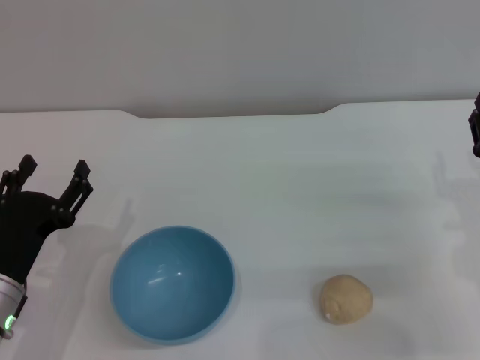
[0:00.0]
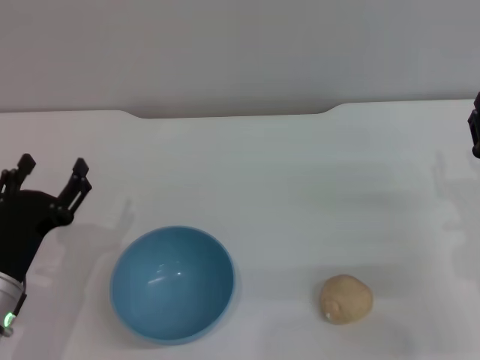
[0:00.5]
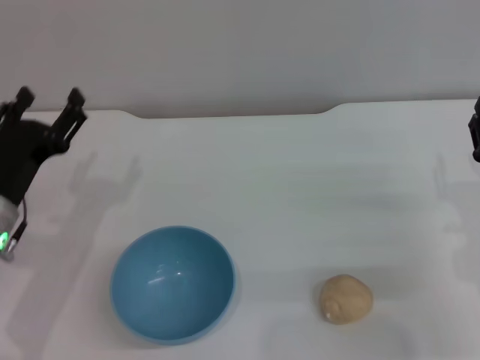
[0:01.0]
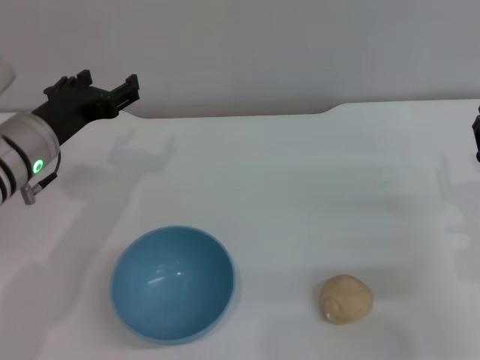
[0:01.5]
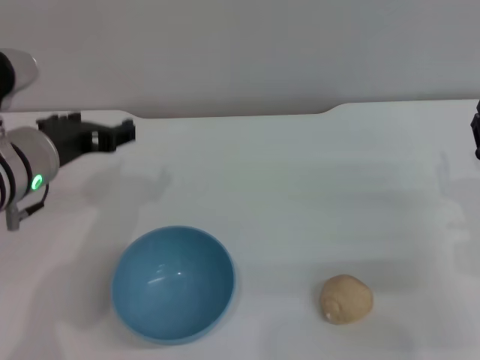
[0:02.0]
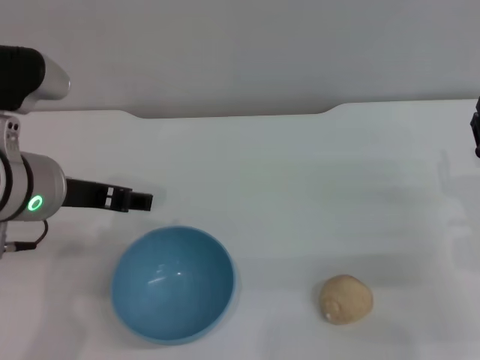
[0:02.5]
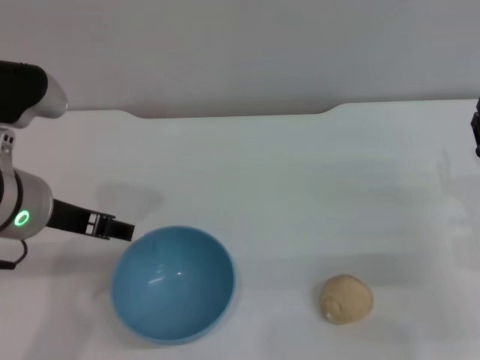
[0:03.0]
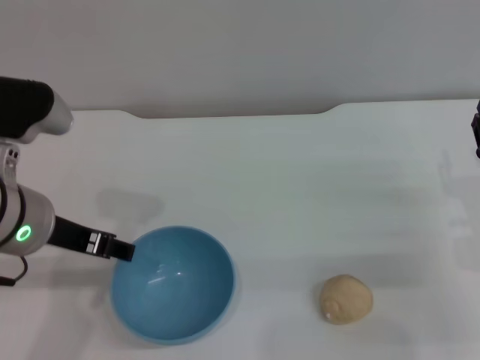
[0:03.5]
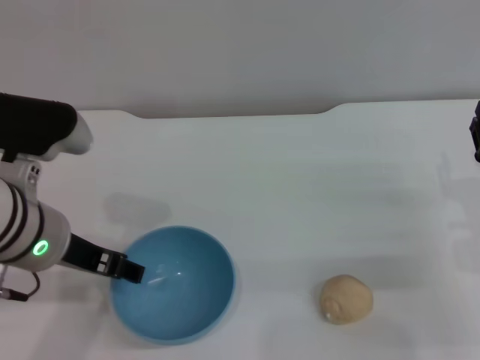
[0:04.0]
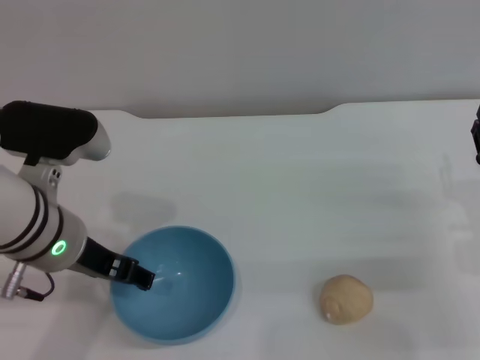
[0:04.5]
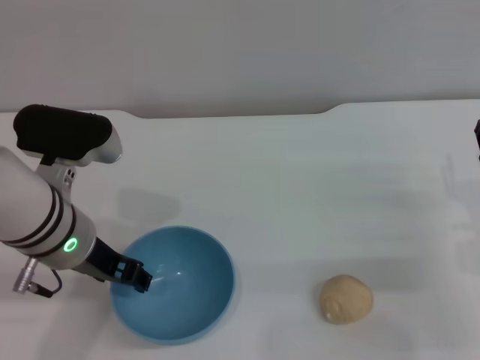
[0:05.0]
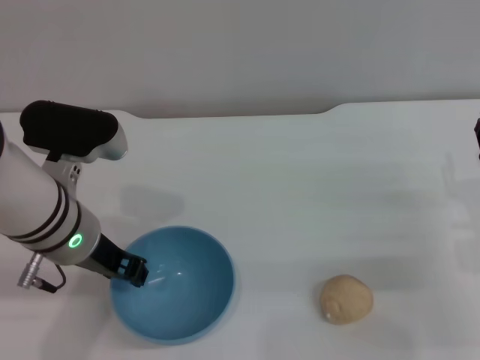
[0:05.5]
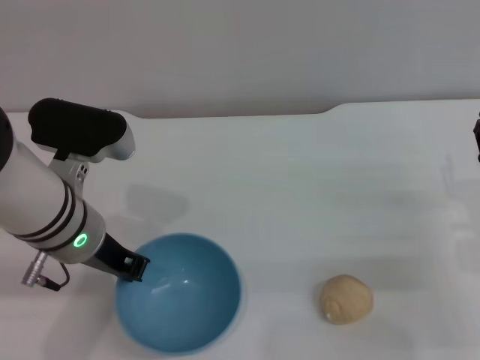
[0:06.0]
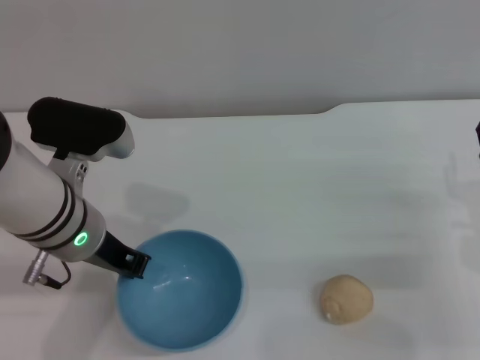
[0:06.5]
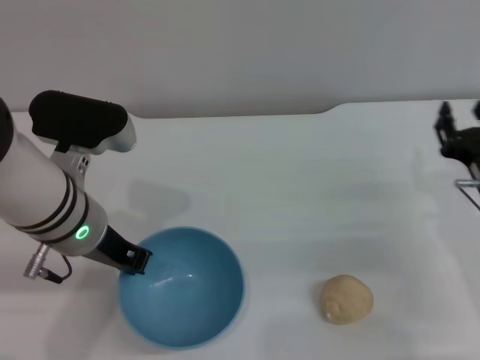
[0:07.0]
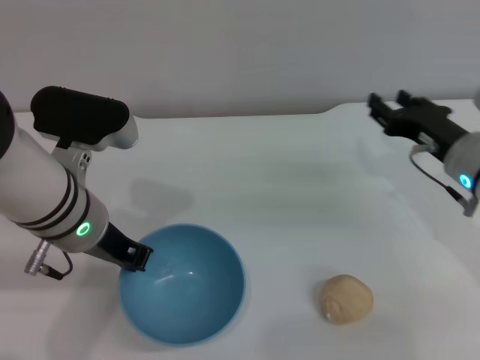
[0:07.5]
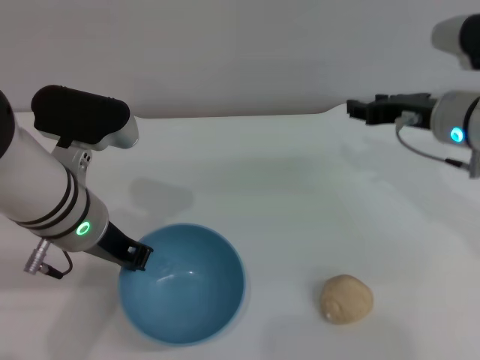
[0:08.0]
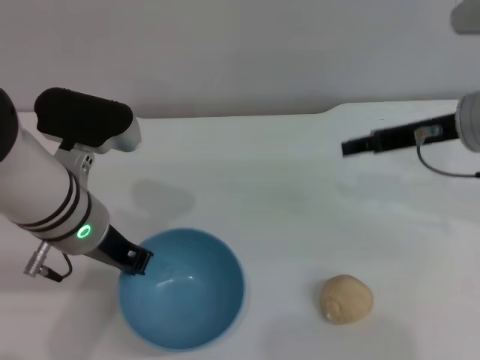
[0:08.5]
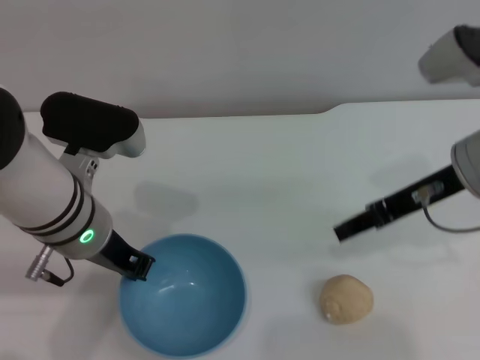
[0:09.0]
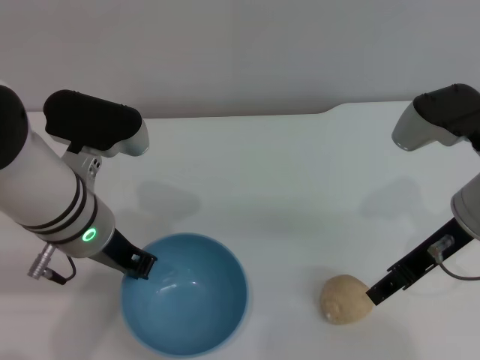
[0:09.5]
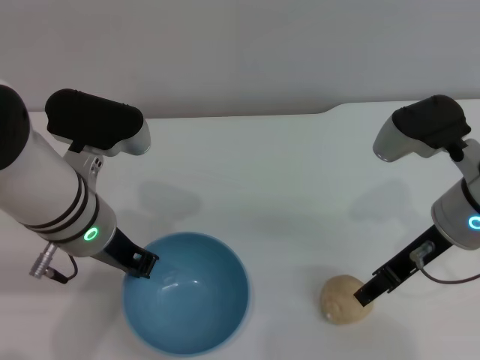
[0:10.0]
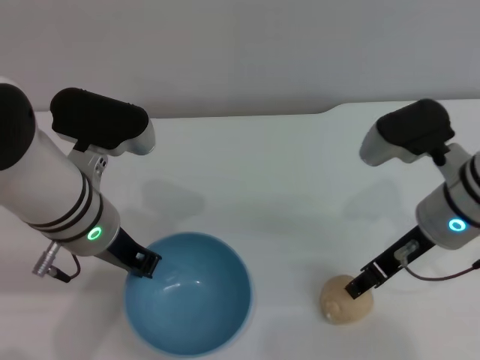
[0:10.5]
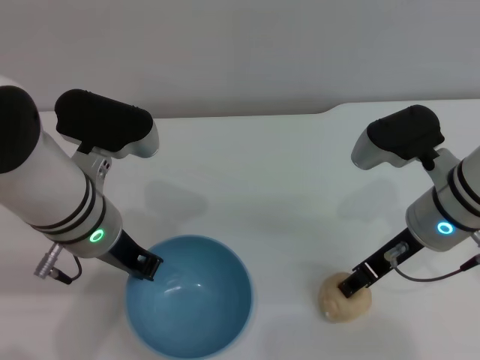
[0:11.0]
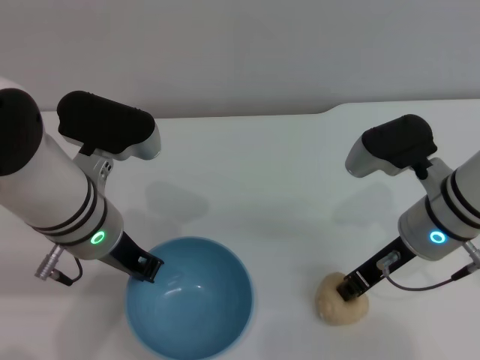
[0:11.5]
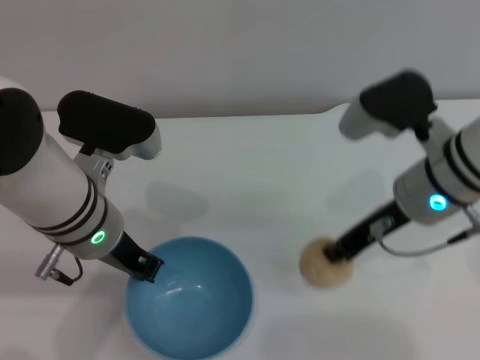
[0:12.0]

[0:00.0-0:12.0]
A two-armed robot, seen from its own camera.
Task of the whole recording: put the egg yolk pastry into the blue bowl and pour it out repeatedly.
Step, 0:00.0 to 0:08.5: Pick up the bowl with the left gripper.
Step, 0:09.0 to 0:12.0: Pick up the egg yolk pastry with the right gripper.
0:00.0 to 0:02.0: The left gripper heads upward and forward, covering about 15 cm.
0:04.0 to 0:06.0: The left gripper closes its fingers.
0:06.0 to 0:08.0: The right gripper heads upward, forward and to the left, covering approximately 15 cm.
0:08.0 to 0:10.0: The right gripper heads backward, covering approximately 5 cm.
0:10.0 to 0:12.0: The right gripper closes its fingers.

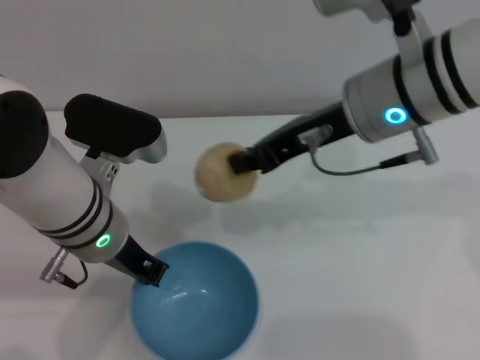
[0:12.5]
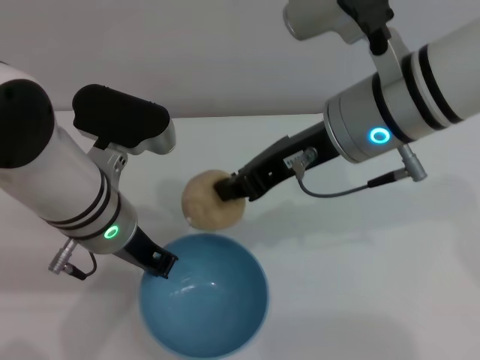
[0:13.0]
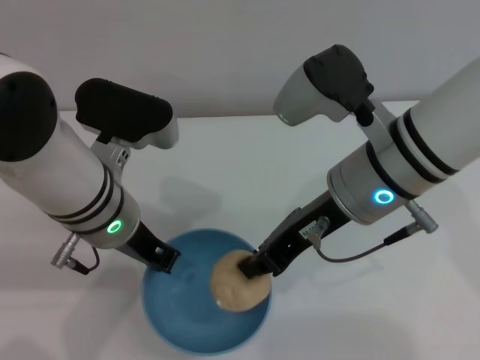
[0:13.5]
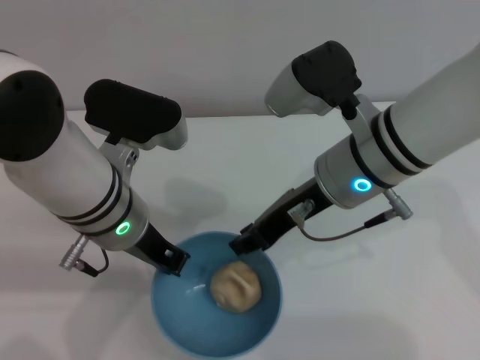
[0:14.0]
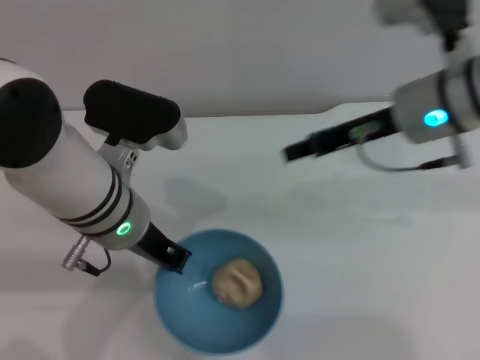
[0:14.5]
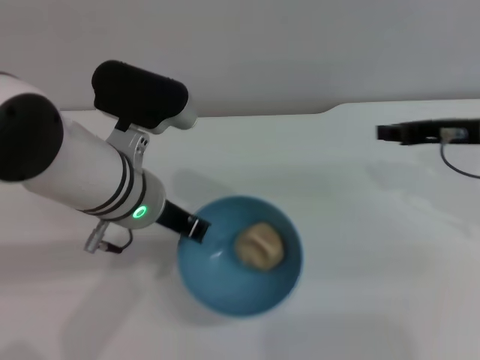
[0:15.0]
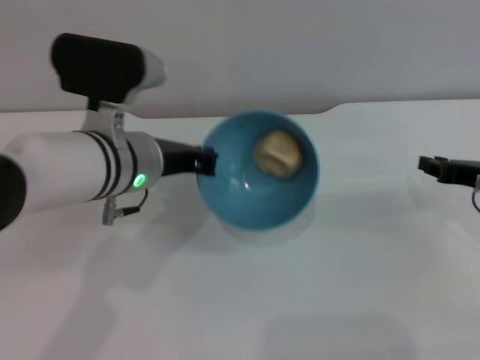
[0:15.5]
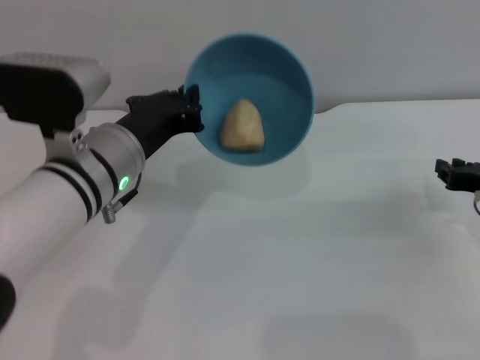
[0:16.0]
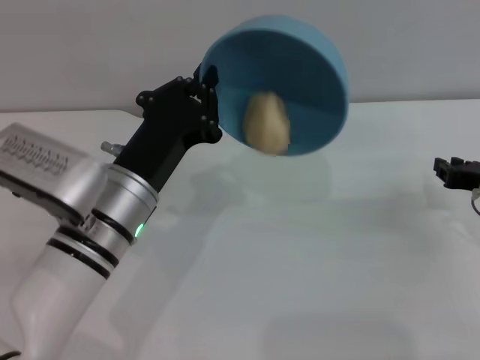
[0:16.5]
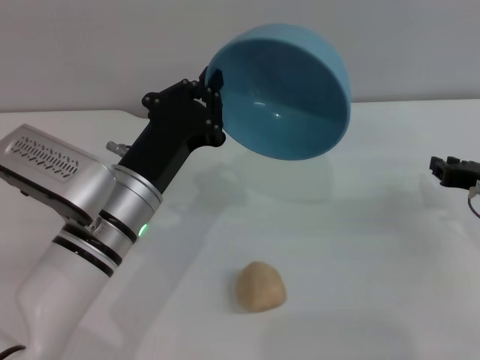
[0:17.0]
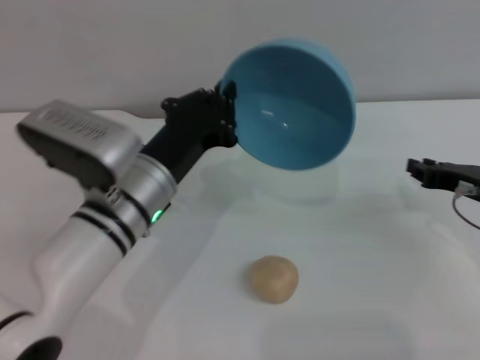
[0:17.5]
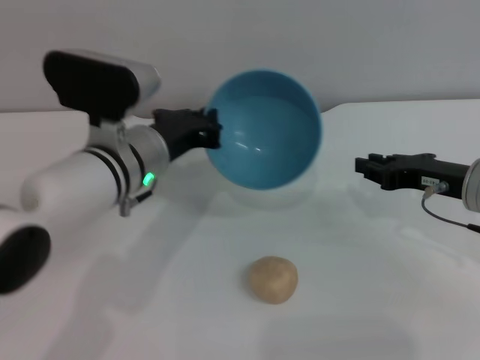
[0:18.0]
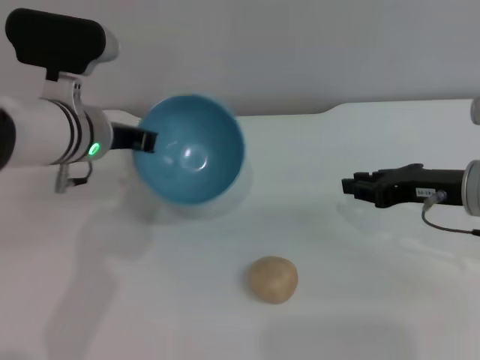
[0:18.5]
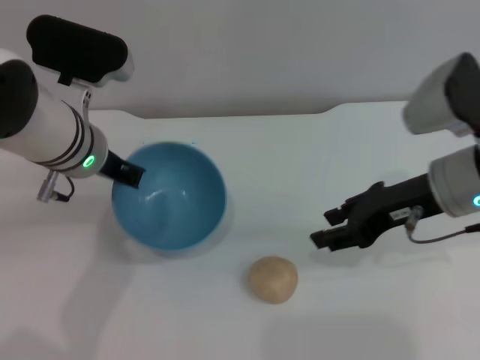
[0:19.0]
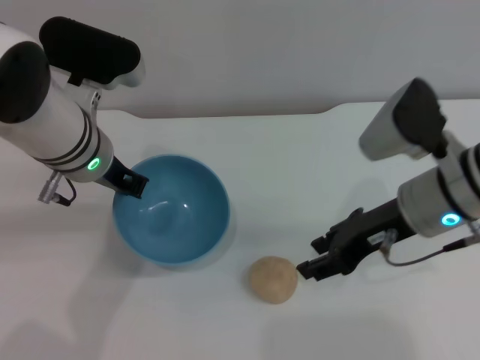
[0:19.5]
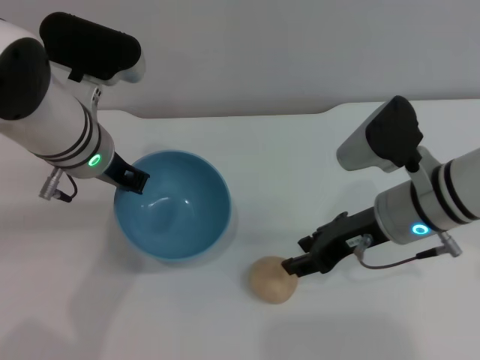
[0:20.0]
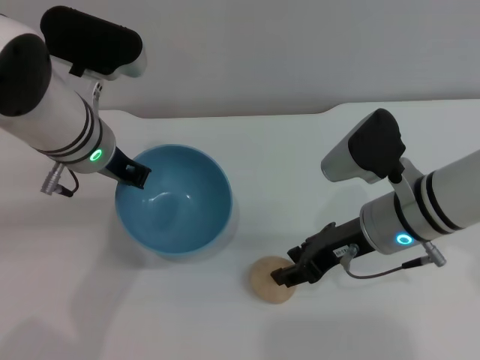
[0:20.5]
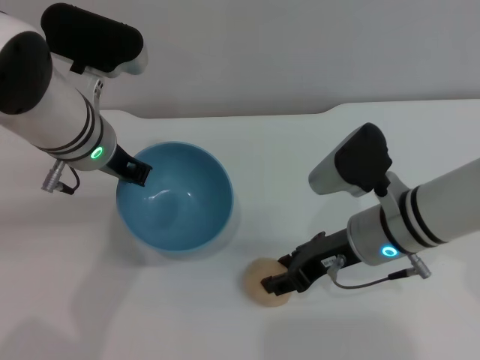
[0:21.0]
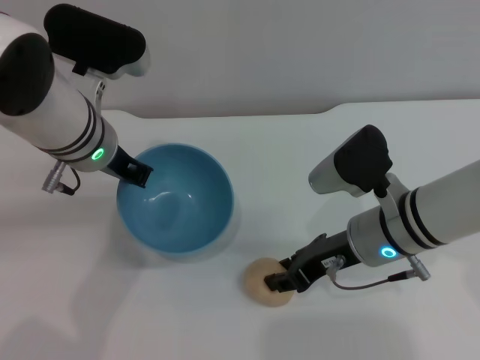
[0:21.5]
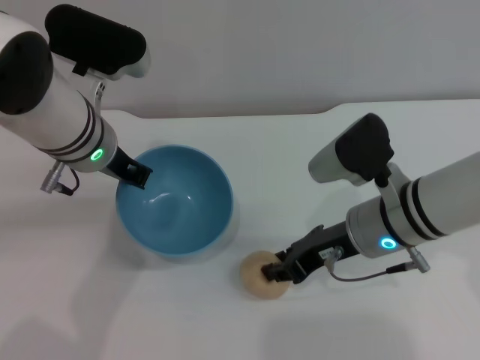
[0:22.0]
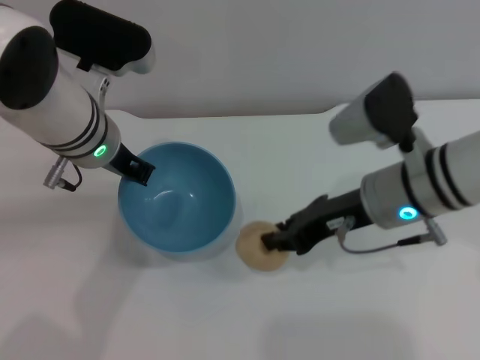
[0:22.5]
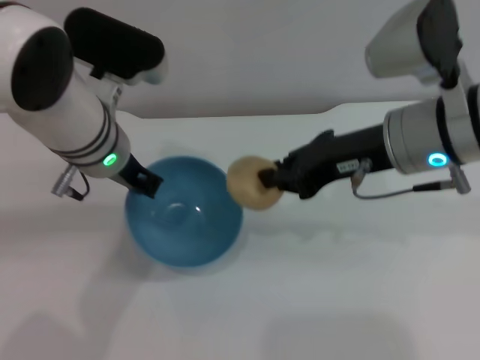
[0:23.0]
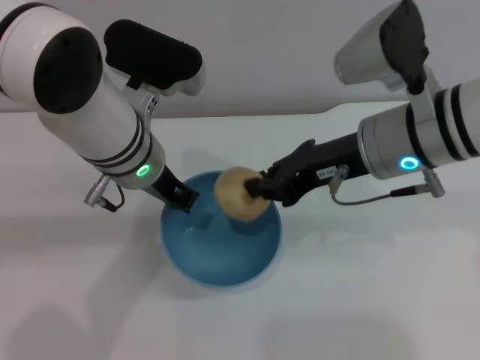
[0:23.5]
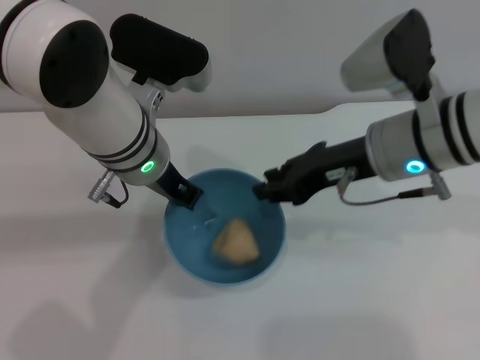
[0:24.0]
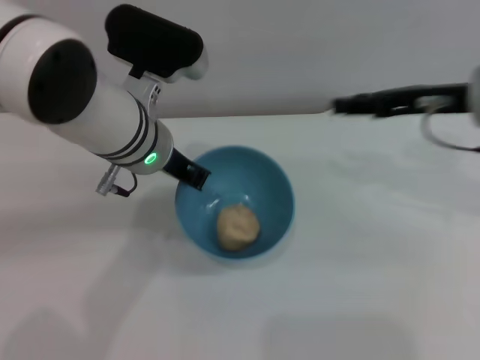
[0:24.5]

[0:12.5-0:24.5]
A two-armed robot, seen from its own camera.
Task of the whole recording: put the egg yolk pastry into the blue bowl and pour it out repeatedly.
Step, 0:12.5 to 0:15.0: Place the egg yolk pastry into the bowl.
Step, 0:15.5 to 0:17.0: Pour the egg yolk pastry out of bowl.
Step, 0:18.0 to 0:22.5: Pick up the egg yolk pastry with the right gripper.
Step, 0:23.0 to 0:24.0: Place the egg yolk pastry into the bowl.
0:12.5 to 0:14.5: The right gripper heads to the right, covering about 5 cm, and opens up.
0:14.5 to 0:16.5: The left gripper goes about 5 cm downward, while the right gripper goes about 20 cm to the right and downward.
0:16.5 to 0:18.5: The left gripper is displaced forward by approximately 10 cm. Meanwhile the right gripper is displaced to the left and upward by about 10 cm.
0:18.5 to 0:20.5: The right gripper heads to the left, covering some 10 cm, and opens.
0:20.5 to 0:22.5: The right gripper closes.
0:22.5 to 0:24.5: The right gripper heads to the right and upward, covering some 10 cm, and opens.

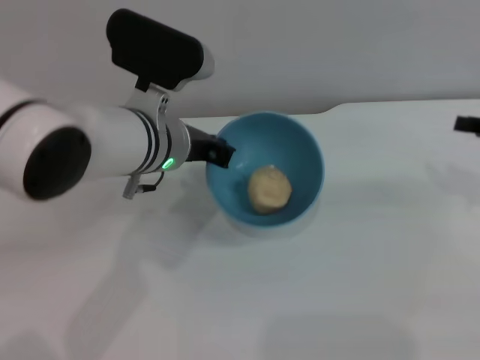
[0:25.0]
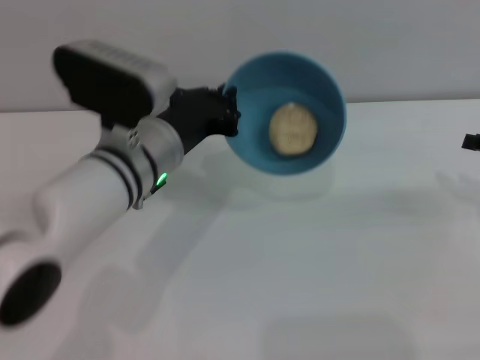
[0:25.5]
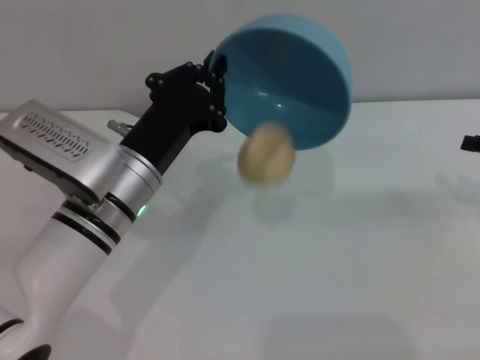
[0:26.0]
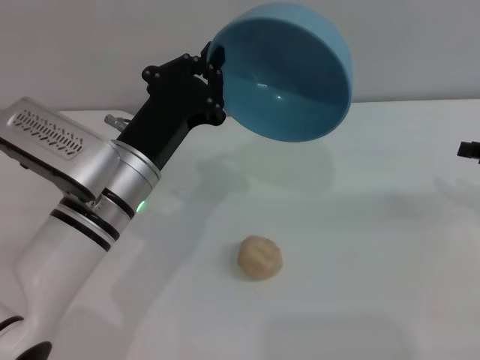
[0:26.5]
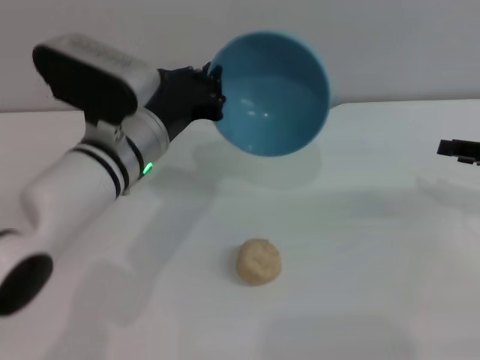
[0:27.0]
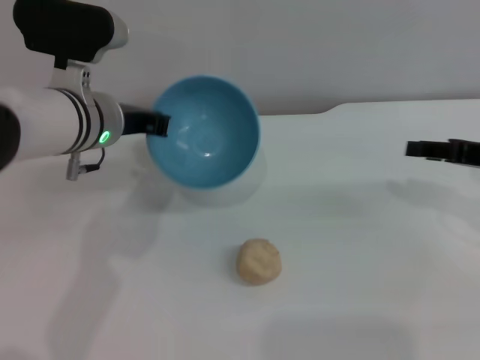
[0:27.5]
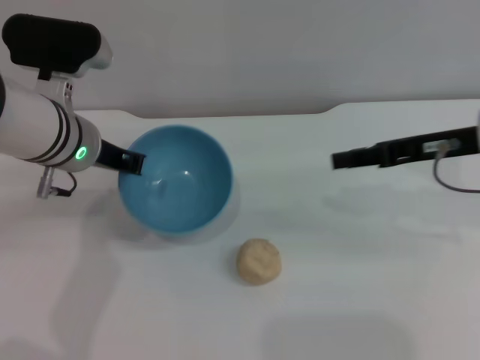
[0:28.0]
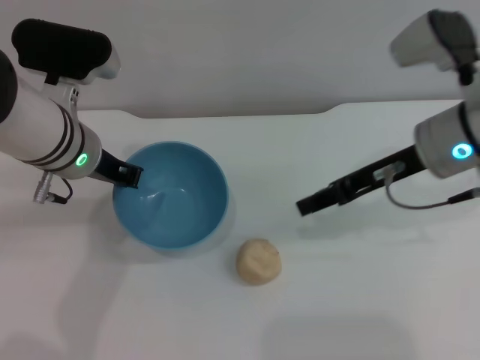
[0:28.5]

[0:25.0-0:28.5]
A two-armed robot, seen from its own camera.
Task of the whole recording: put the egg yolk pastry into the blue bowl and pour it out repeatedly.
Step, 0:25.0 to 0:26.0: Pour the egg yolk pastry out of bowl.
0:27.0 to 0:28.5: The left gripper ends up approximately 5 cm from where it was, while the right gripper moves to the left, roughly 15 cm.
